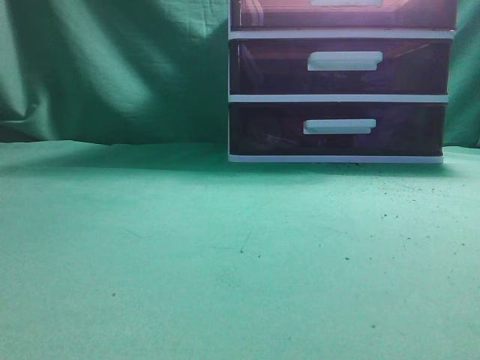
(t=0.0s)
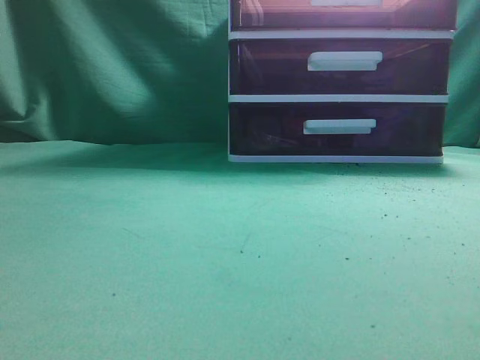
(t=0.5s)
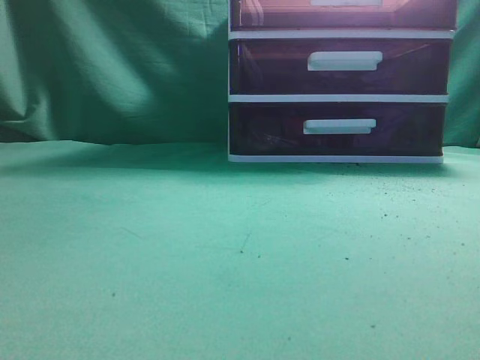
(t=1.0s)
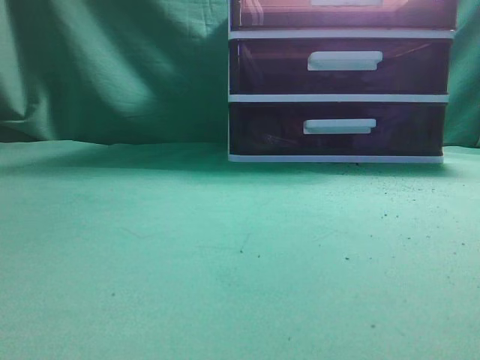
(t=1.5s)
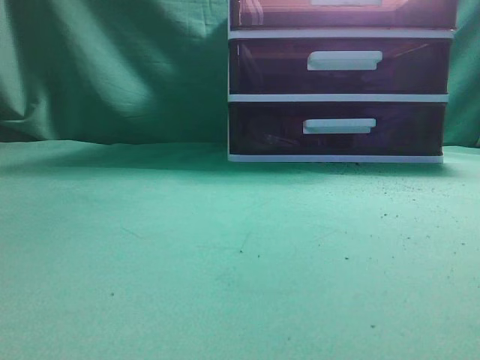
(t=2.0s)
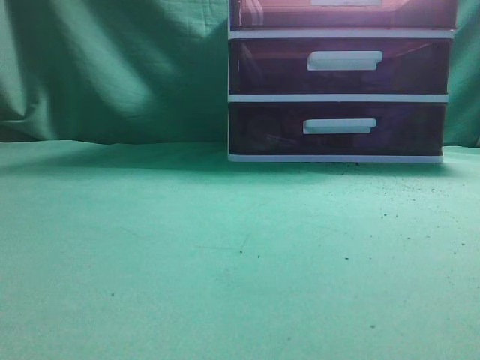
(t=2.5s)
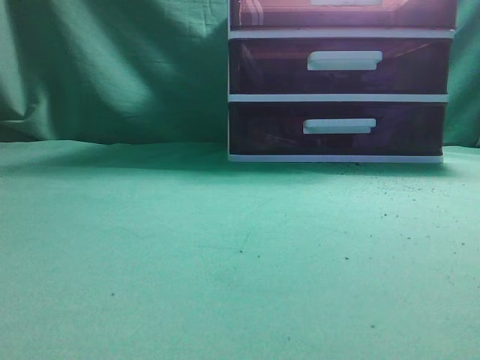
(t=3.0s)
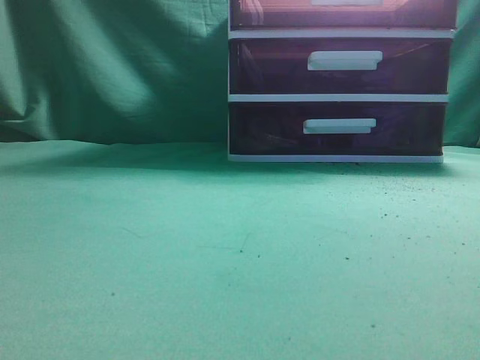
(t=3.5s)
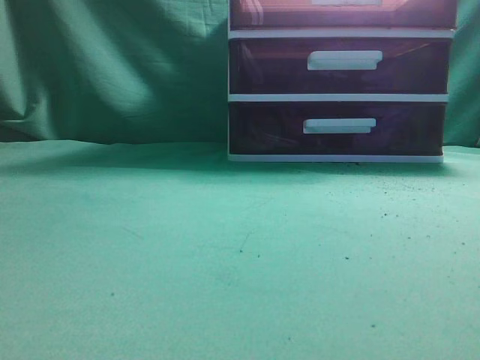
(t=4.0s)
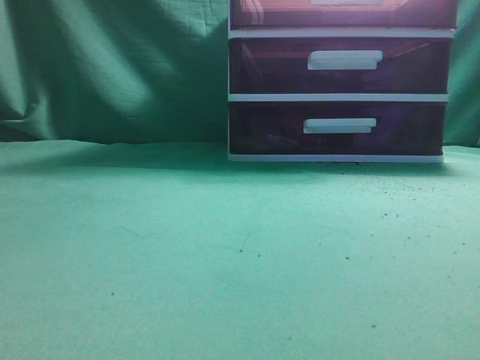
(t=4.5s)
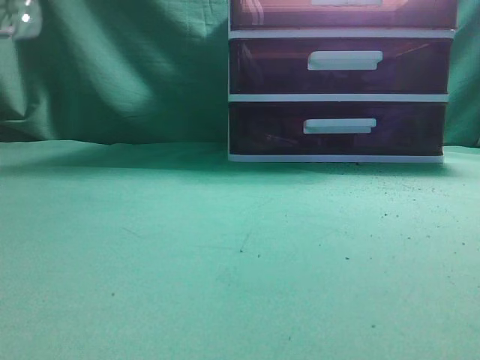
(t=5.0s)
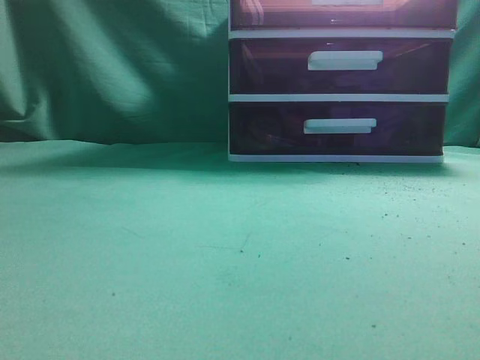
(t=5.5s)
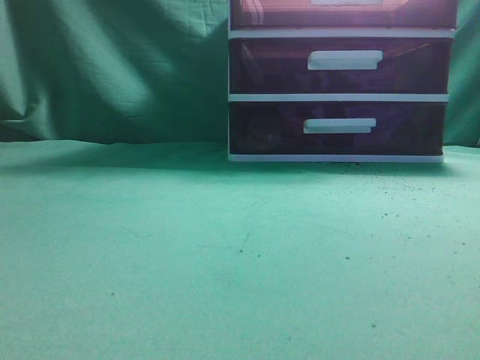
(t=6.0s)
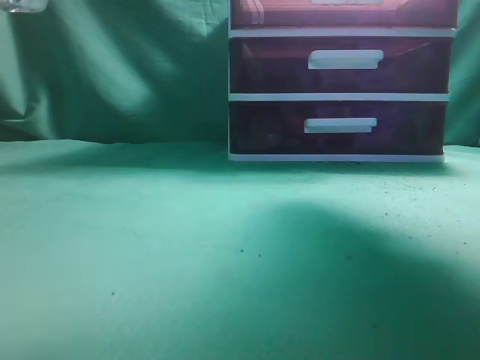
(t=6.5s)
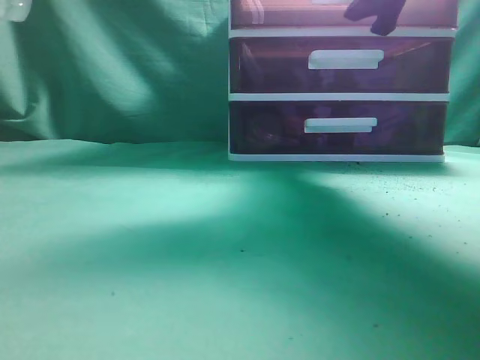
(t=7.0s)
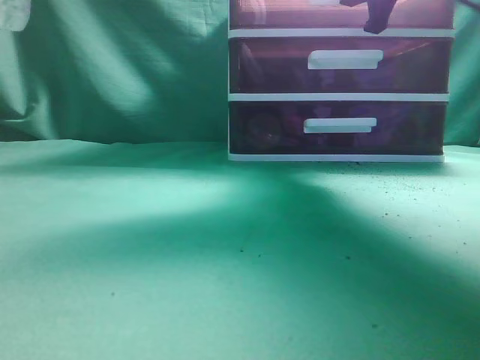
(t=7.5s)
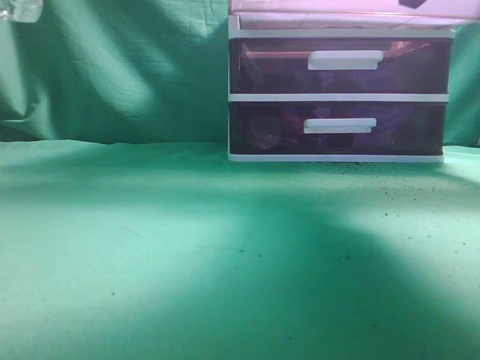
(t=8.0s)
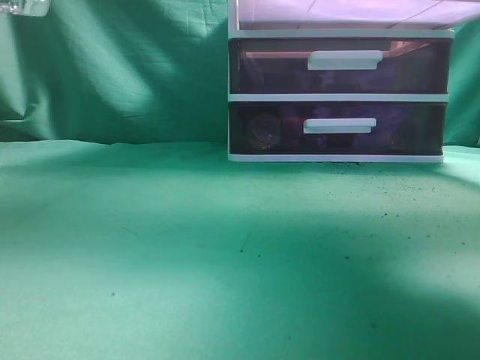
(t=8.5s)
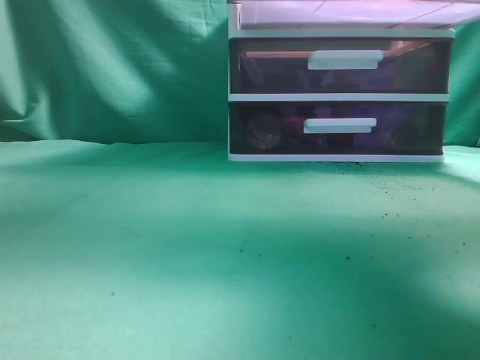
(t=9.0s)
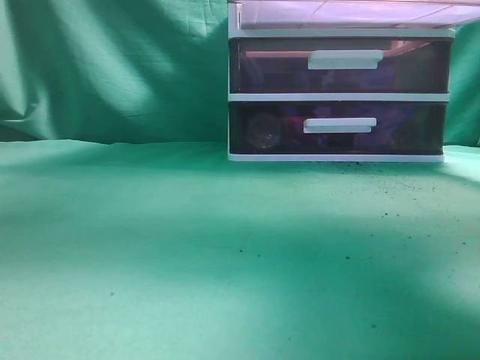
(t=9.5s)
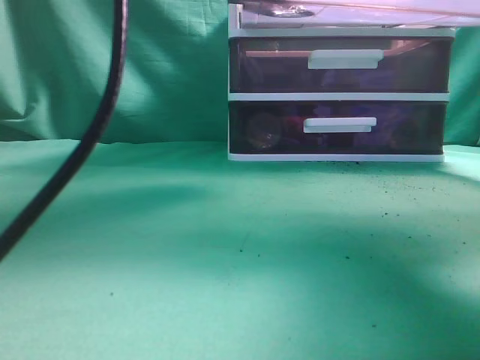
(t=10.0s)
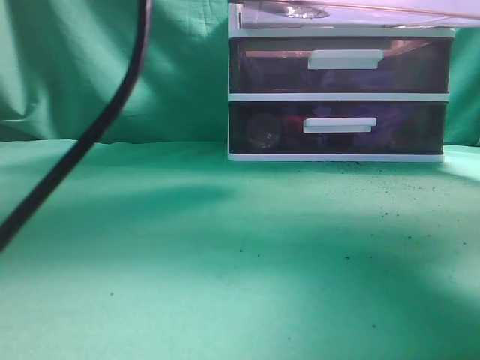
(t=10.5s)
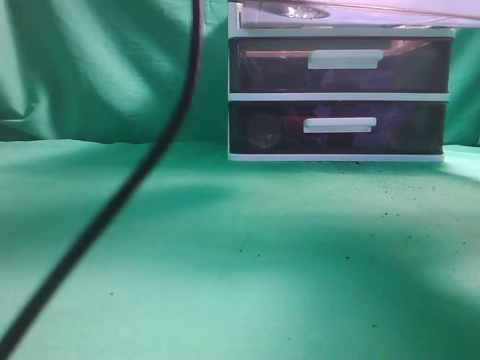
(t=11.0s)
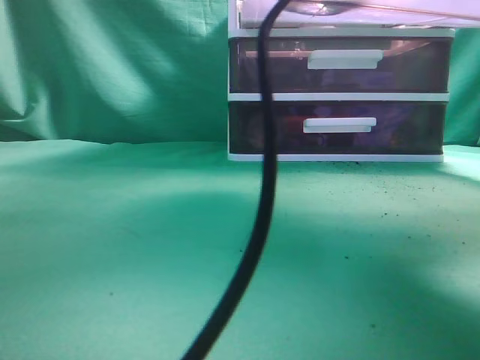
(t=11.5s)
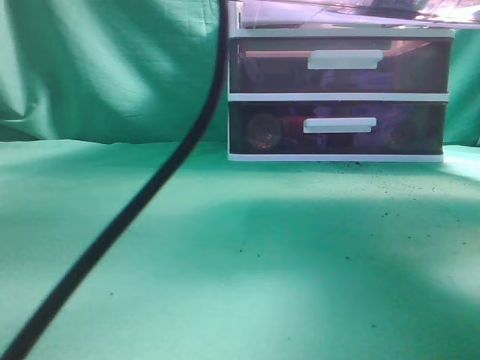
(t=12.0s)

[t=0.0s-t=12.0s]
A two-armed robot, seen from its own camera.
Task of the whole recording: place the water bottle into the drawer.
Step, t=0.0s to t=8.0s: Open the drawer.
Step, t=8.5s to t=11.0s: Place the water bottle inside the drawer.
t=6.0s to t=8.0s: The right gripper shifts about 20 cm forward and to the left, and opens, then closes once more.
t=8.0s to t=10.0s: The left gripper shifts about 25 cm to the right and forward. The right gripper goes some 10 cm backward.
t=10.0s to t=12.0s: The left gripper is displaced to the right by some 10 cm, and opens and closes again.

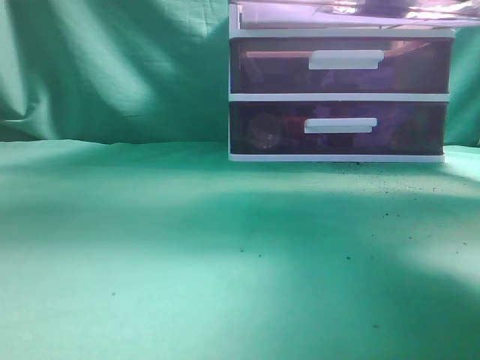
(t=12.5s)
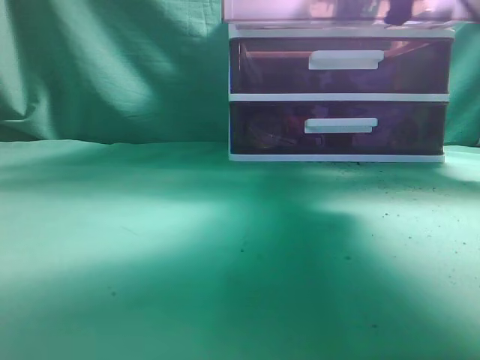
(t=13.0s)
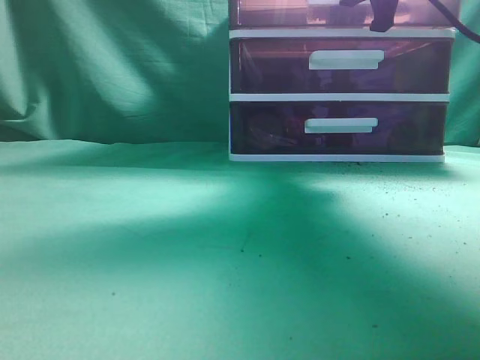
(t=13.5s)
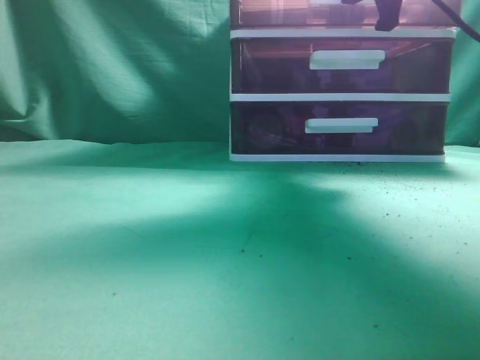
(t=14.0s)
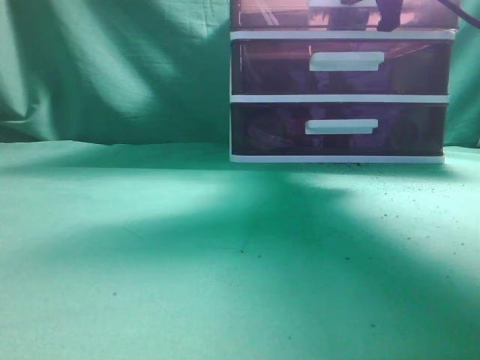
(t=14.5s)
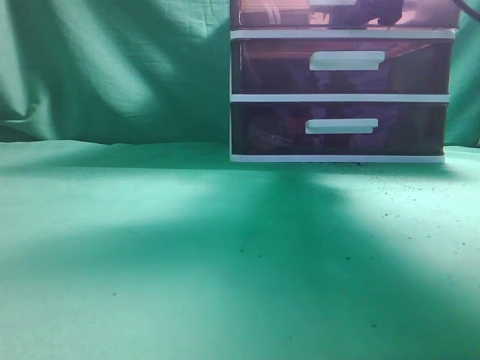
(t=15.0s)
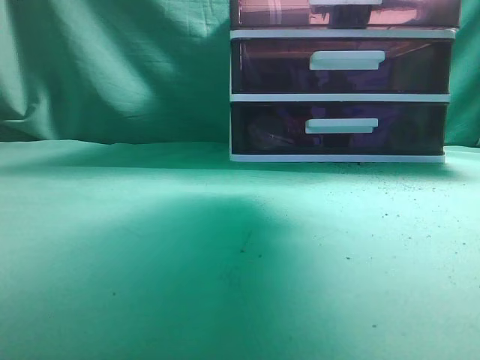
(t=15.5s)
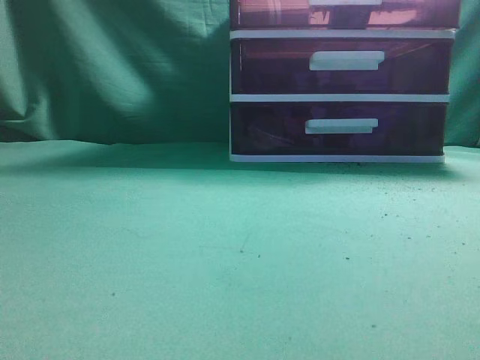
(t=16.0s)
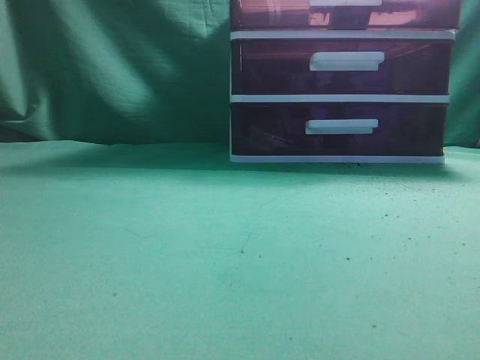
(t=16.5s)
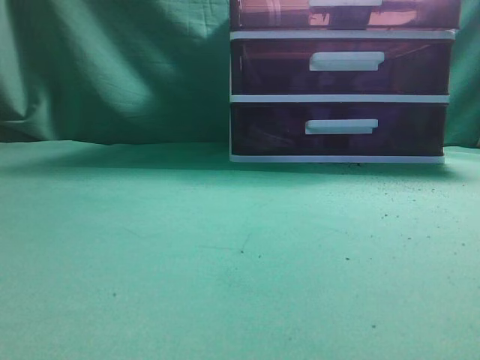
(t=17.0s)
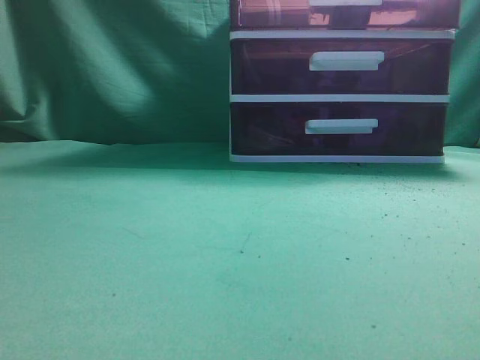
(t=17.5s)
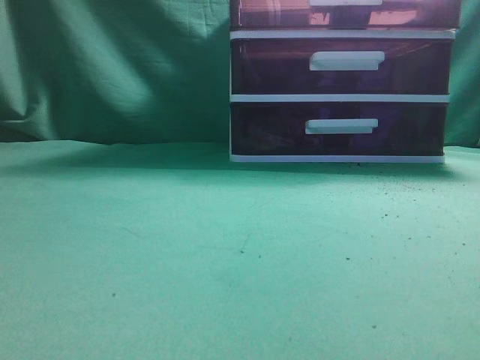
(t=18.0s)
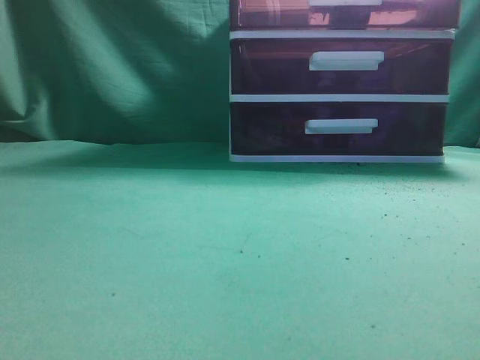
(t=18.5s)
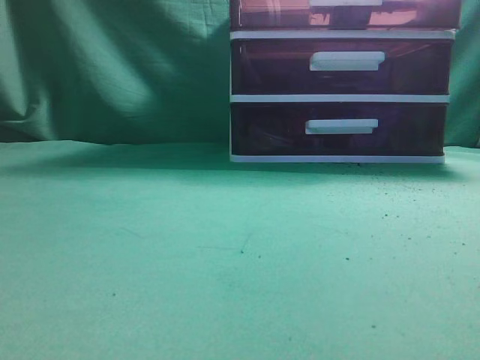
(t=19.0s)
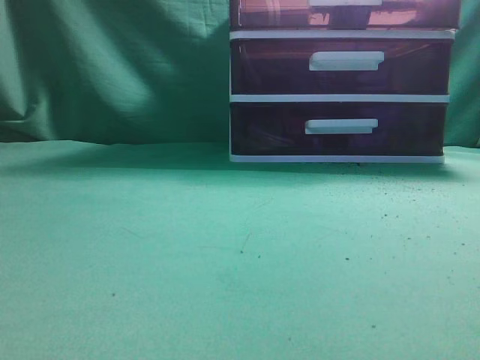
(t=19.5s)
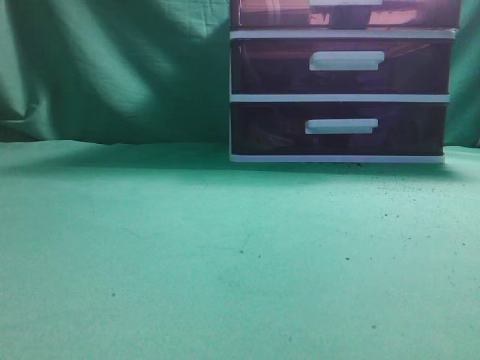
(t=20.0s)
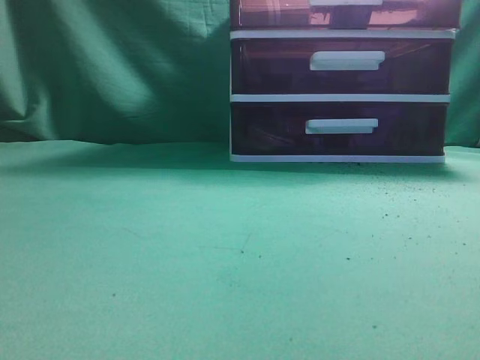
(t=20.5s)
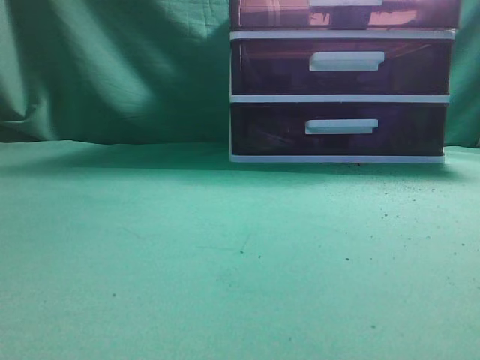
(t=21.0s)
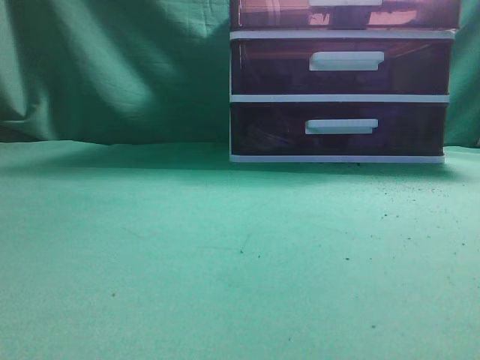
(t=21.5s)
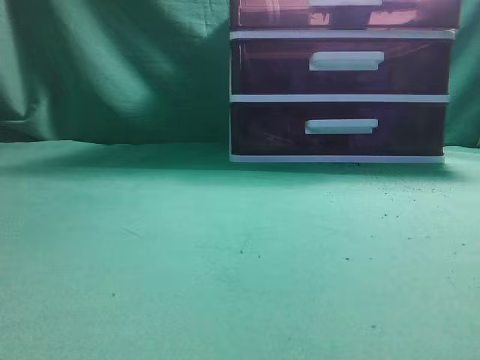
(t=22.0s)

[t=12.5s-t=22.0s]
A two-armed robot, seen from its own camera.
Task of the whole recording: place the water bottle into the drawer.
t=12.5s to t=14.5s: The right gripper shifts roughly 15 cm forward; the left gripper goes some 20 cm backward and to the left.
t=14.5s to t=16.5s: The left gripper travels backward, to the left and downward by roughly 15 cm. The right gripper shifts about 35 cm backward and upward, and opens, then closes again.

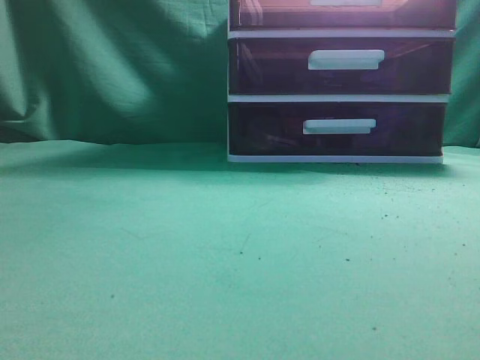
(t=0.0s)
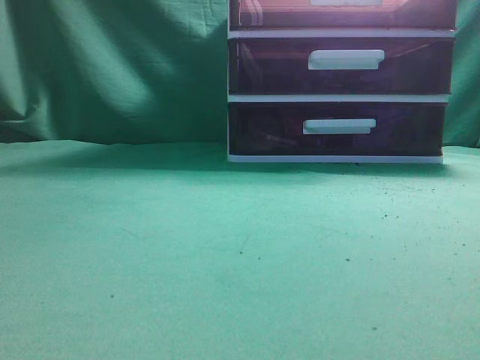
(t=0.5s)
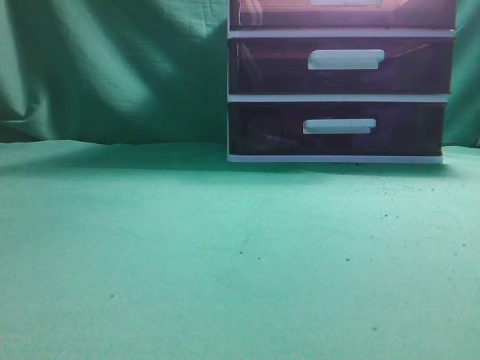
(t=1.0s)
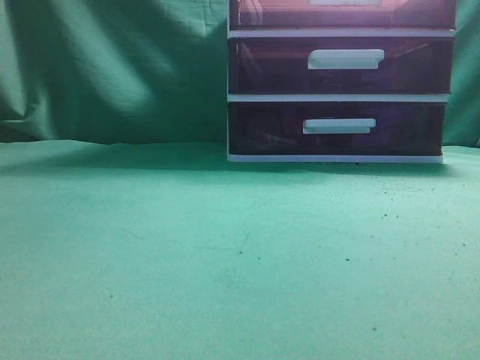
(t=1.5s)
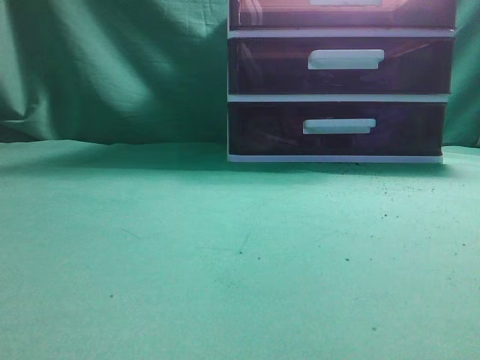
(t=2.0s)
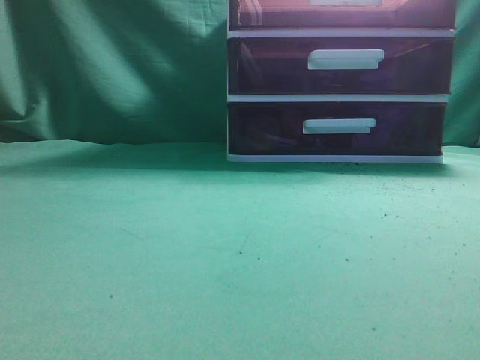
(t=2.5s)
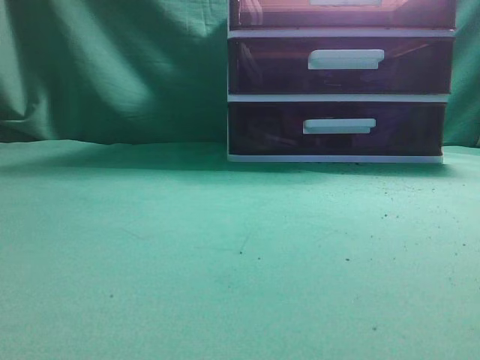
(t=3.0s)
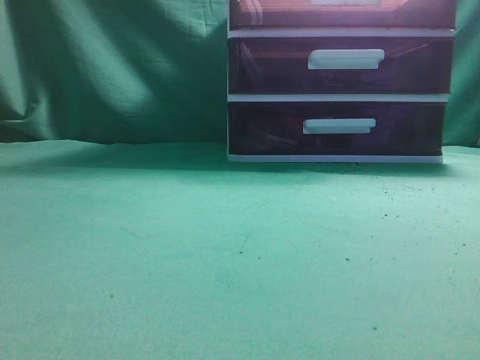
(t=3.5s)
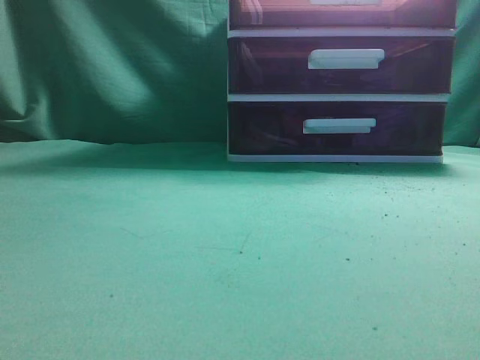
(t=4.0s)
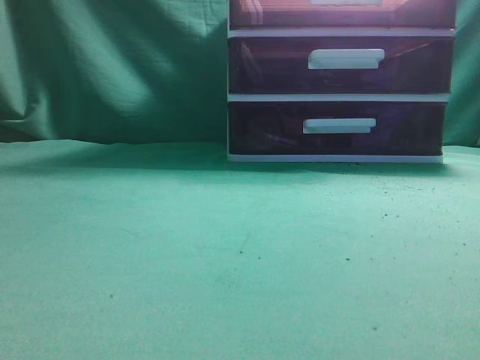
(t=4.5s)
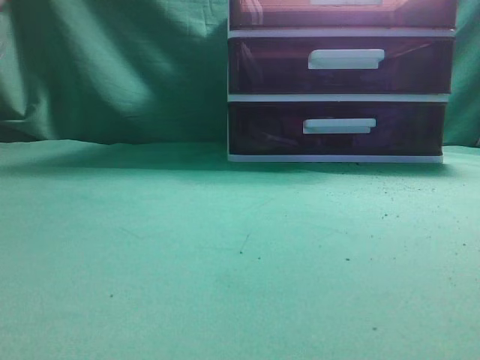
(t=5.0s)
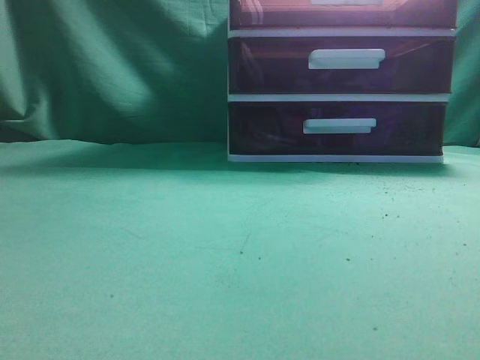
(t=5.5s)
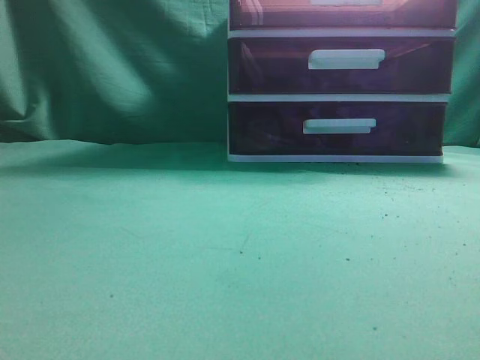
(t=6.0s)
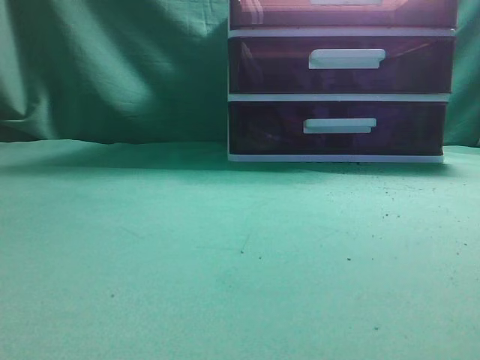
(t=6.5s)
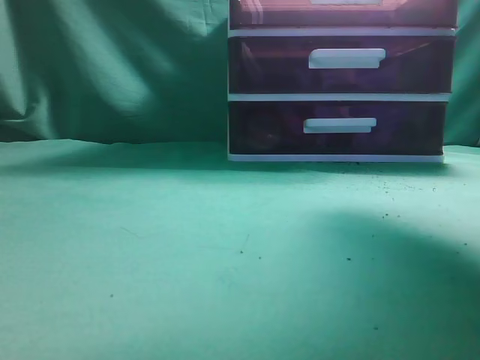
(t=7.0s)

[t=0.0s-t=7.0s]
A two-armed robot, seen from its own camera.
Task of the whole recording: place the water bottle into the drawer.
t=5.0s to t=7.0s: The right gripper travels forward and upward by some 30 cm, and opens its fingers. The left gripper travels backward by roughly 5 cm.
